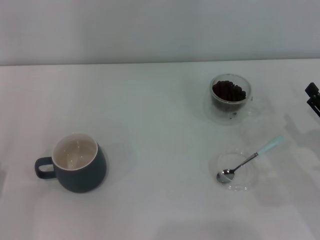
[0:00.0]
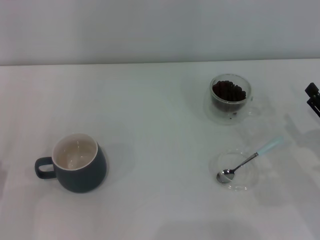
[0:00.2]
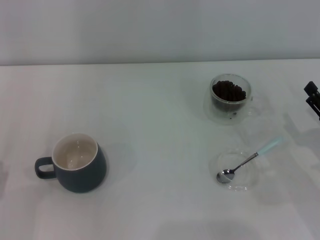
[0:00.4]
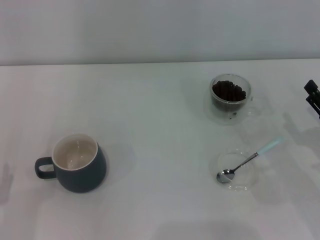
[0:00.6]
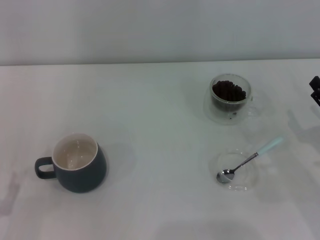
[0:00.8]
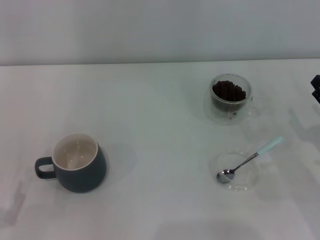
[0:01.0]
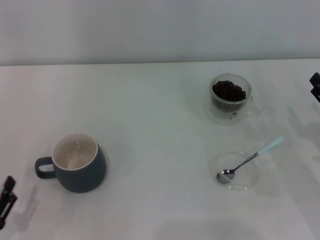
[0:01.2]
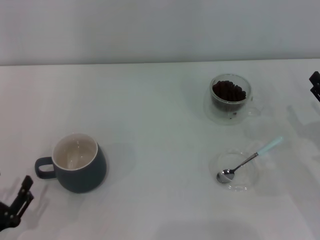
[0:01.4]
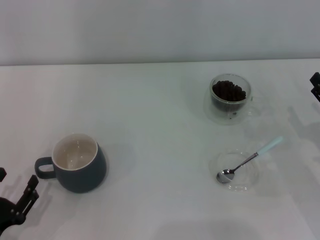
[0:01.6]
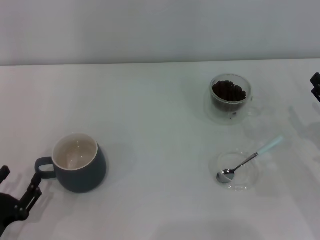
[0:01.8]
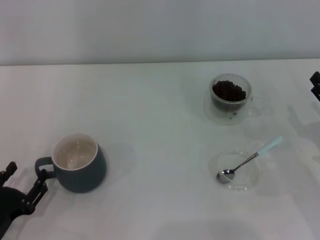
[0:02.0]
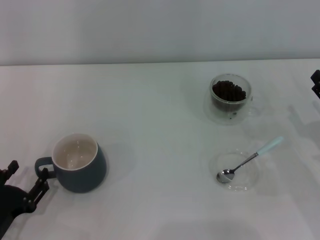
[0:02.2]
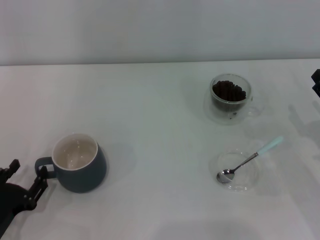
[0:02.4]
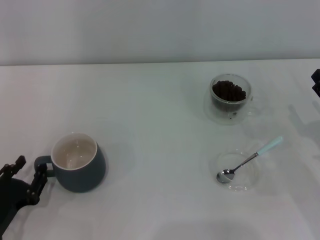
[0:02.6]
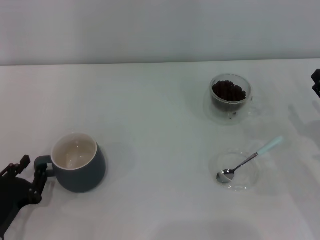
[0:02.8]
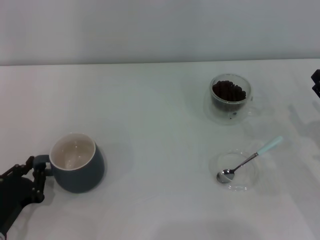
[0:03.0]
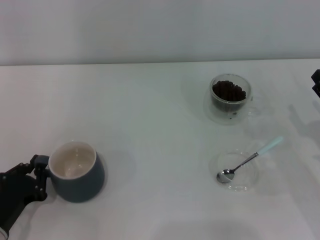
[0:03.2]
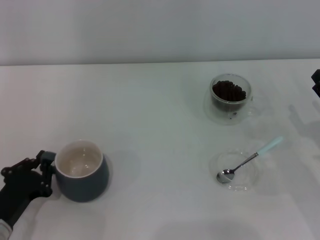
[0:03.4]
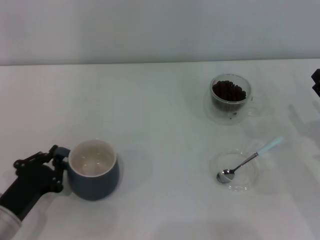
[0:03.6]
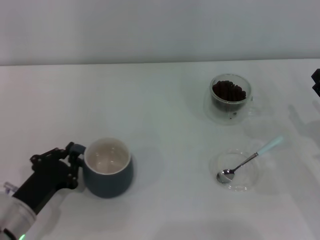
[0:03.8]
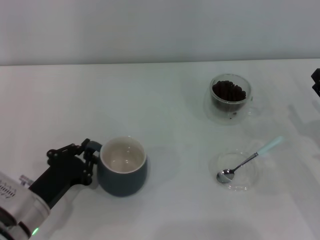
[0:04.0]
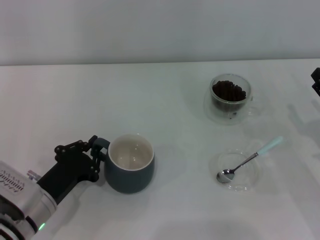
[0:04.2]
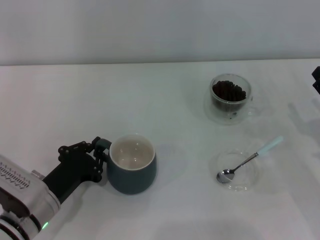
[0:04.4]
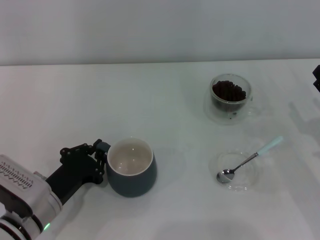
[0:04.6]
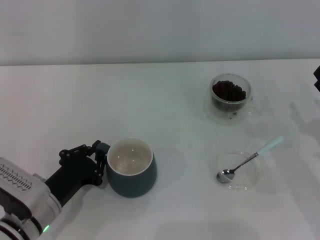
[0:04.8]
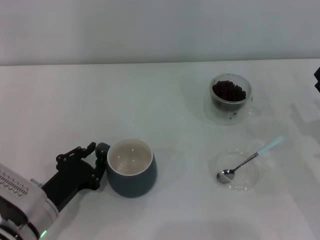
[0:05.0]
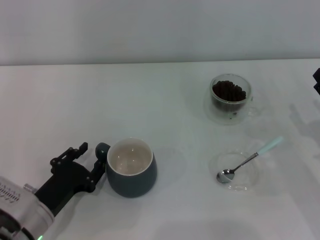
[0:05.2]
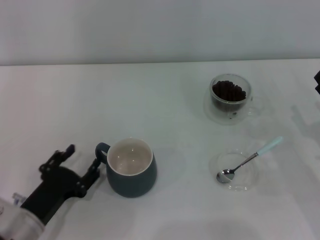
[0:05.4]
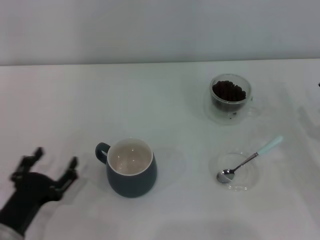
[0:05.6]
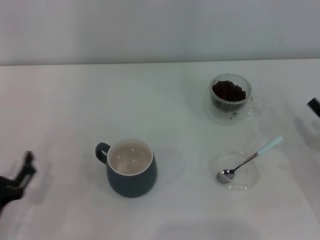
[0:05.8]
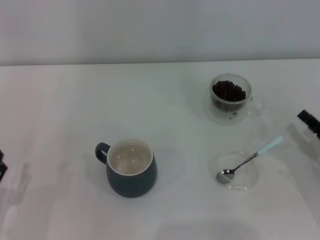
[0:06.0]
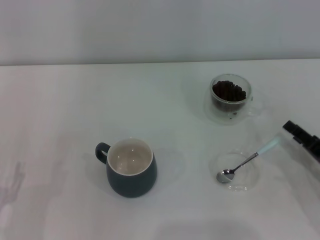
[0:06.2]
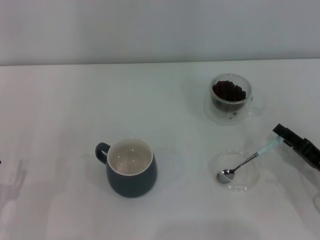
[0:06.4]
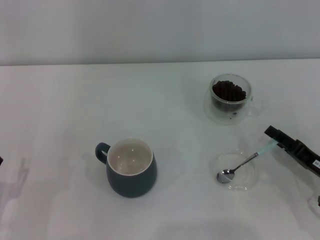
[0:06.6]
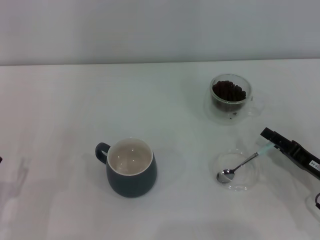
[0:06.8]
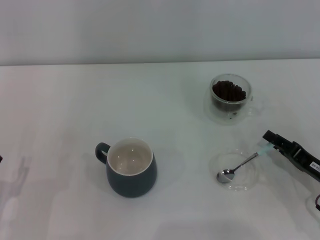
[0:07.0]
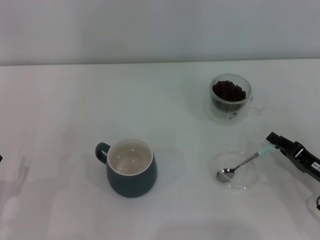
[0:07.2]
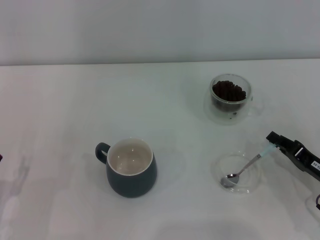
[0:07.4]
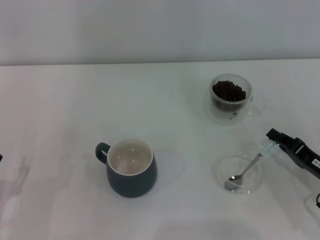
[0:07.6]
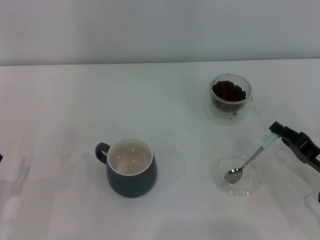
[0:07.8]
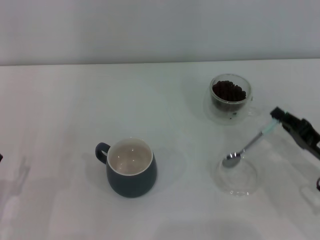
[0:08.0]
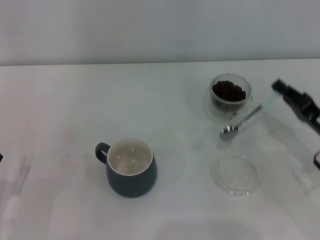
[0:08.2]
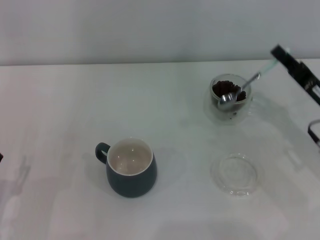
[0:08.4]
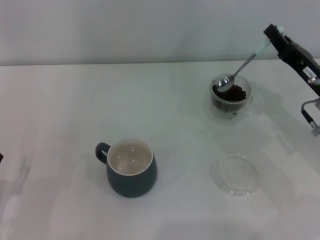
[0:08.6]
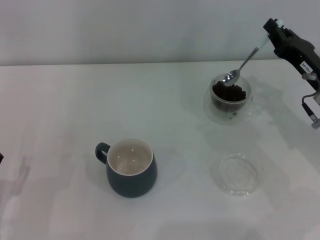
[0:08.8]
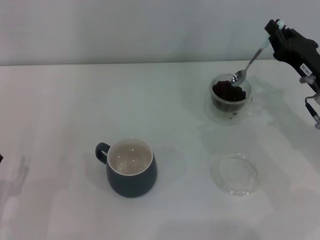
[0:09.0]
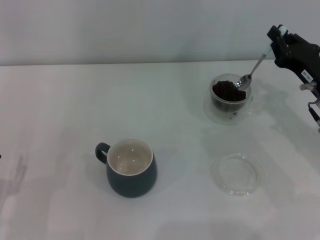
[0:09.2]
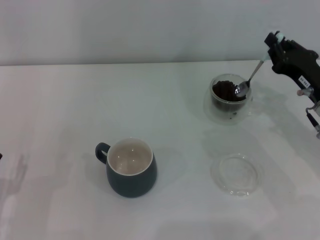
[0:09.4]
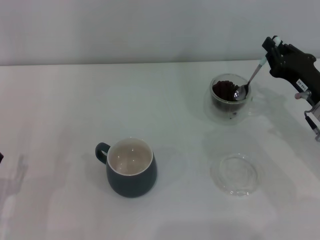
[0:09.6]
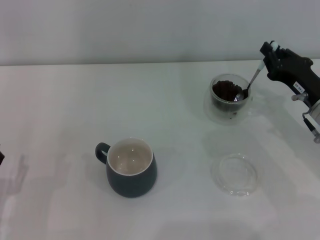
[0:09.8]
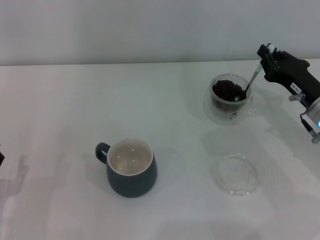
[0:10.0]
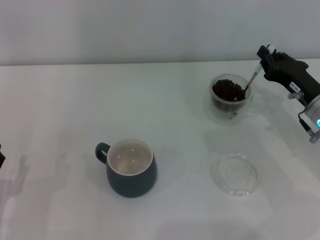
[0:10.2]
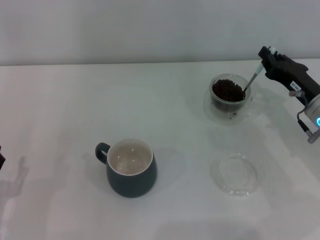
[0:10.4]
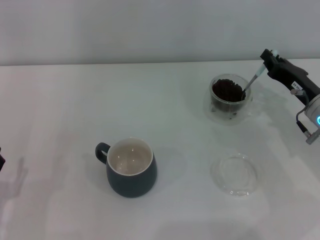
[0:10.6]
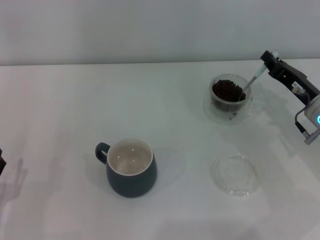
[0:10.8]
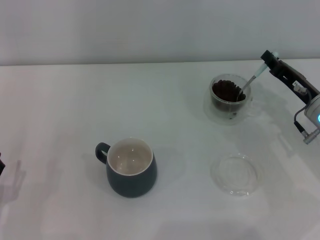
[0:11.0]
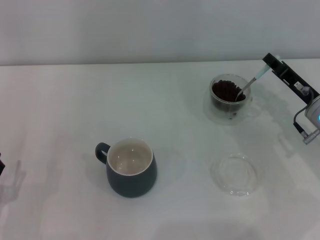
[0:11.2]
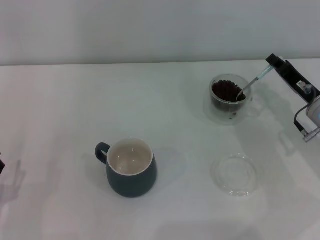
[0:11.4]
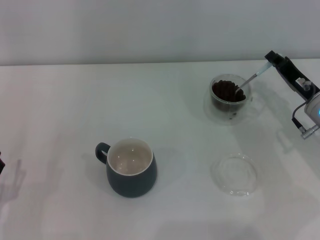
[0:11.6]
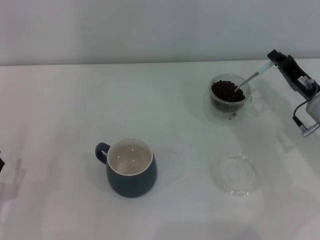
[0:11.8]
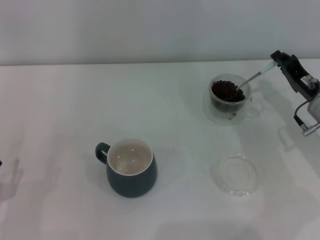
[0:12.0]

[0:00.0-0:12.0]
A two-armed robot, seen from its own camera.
Task of the whole recording: Use a blue spoon to take out the coffee beans from the glass and pour them into the gray cup.
Step, 0:00.0 to 0:05.6: Move the cup to the center of view with the left gripper.
Step, 0:05.8 to 0:08.0: Pick up the spoon with the right gripper.
0:01.6 to 0:03.0: The left gripper closes.
0:03.0 to 0:04.4: The left gripper moves to the right and forward, about 10 cm.
0:04.4 to 0:06.0: The left gripper goes some 10 cm to the left and backward, and opens its fingers.
0:06.0 to 0:07.6: The right gripper closes up.
0:07.6 to 0:09.0: The right gripper goes some 15 cm forward and upward.
0:09.0 to 0:10.4: The grippers stay close to where they were, moving slightly.

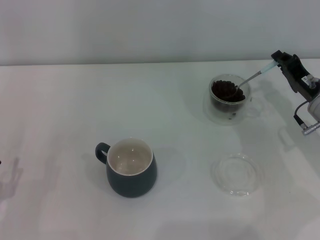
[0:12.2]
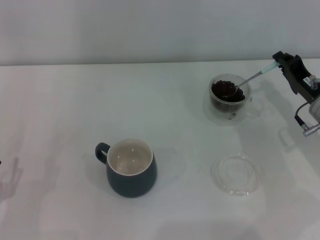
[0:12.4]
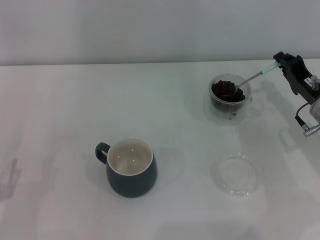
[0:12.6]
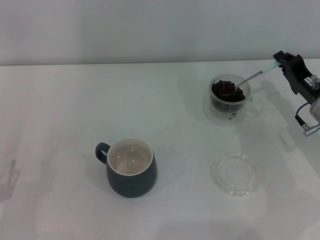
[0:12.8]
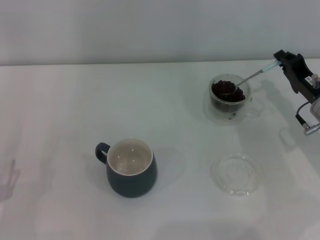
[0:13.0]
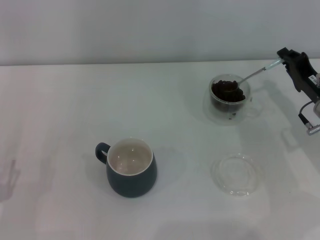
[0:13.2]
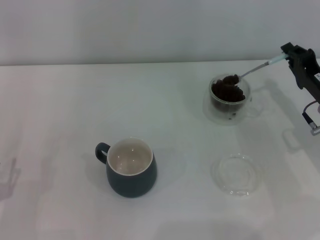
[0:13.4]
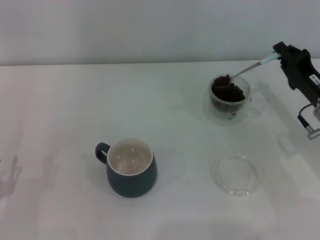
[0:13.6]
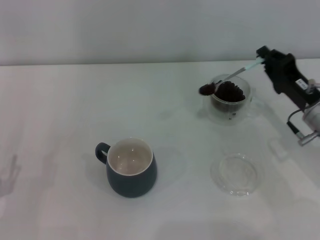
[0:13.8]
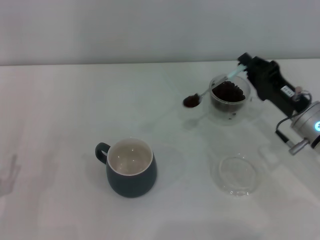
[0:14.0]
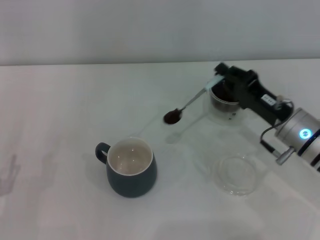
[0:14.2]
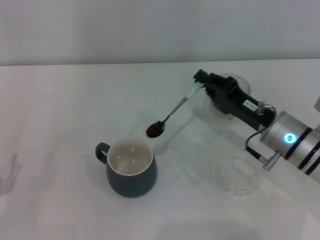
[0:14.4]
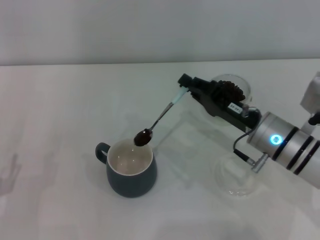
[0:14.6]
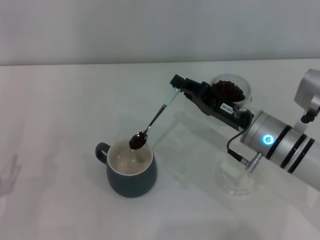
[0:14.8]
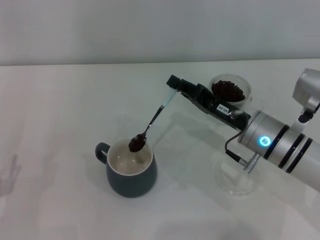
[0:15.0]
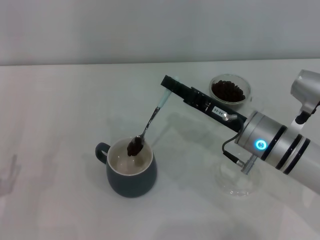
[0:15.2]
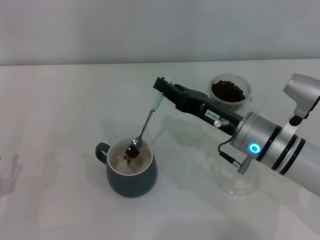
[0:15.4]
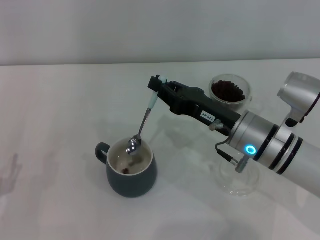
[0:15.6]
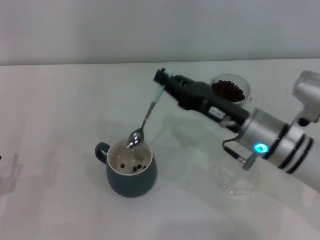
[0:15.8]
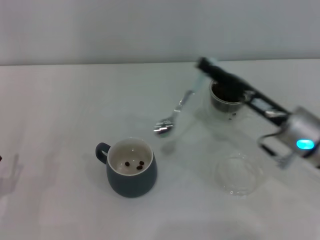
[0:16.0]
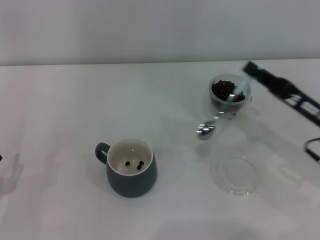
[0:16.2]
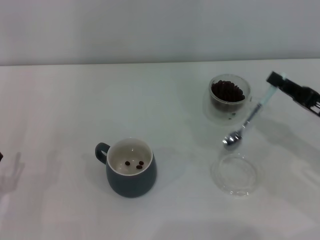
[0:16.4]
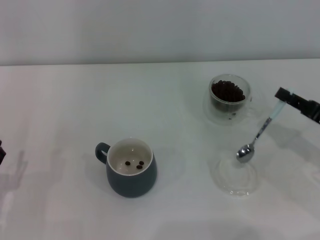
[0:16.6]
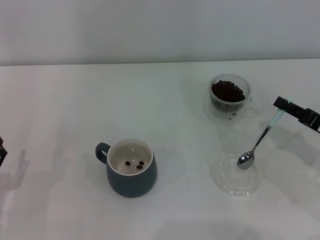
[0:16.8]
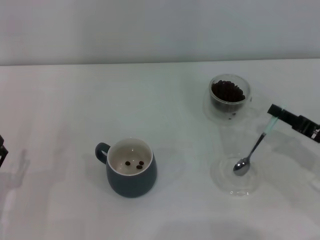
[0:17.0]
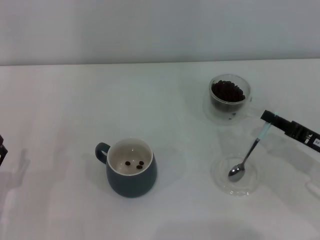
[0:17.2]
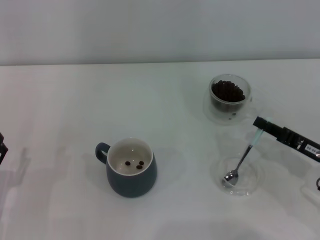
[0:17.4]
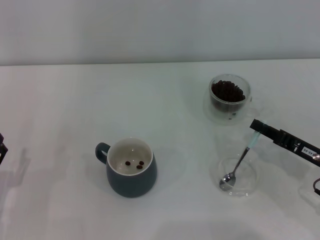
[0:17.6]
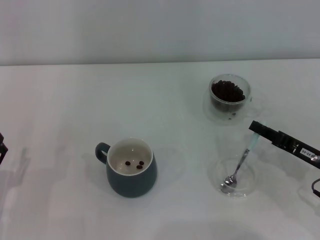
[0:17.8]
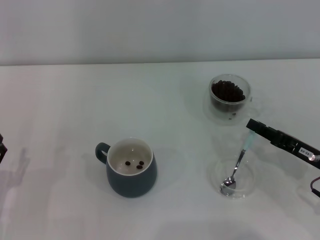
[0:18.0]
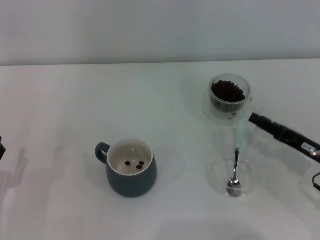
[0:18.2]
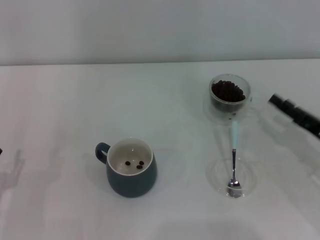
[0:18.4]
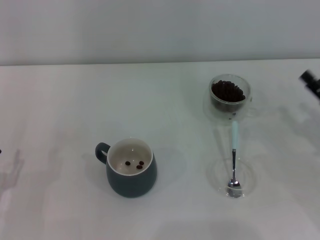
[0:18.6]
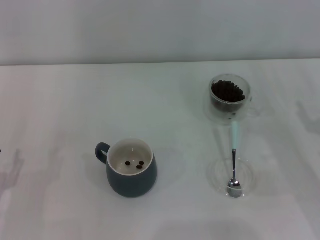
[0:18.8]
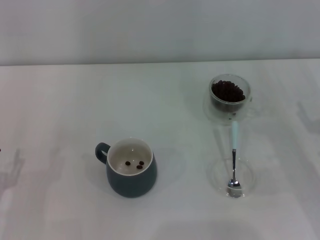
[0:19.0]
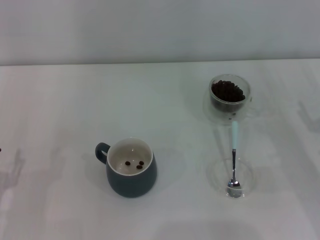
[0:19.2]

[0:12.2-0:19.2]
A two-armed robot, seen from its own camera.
Task of the whole recording: Use a blue spoon to take out the coffee beans from the glass and pour them into the gray cup.
Step, 0:12.2 to 0:15.4: Scoop a spoonful of beans into the cup with the right gripper.
Step, 0:15.6 to 0:18.0: Place the spoon back in its original place with the right gripper.
0:12.2 to 0:13.6: The grippers stay close to where they were, moving slightly.
0:13.6 to 0:15.0: The right gripper goes approximately 10 cm to the left.
0:15.0 to 0:16.4: The right gripper shifts about 15 cm to the right.
0:16.4 to 0:17.8: The right gripper shifts roughly 5 cm downward.
0:17.8 to 0:19.2: The right gripper opens its fingers.

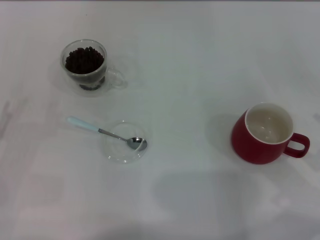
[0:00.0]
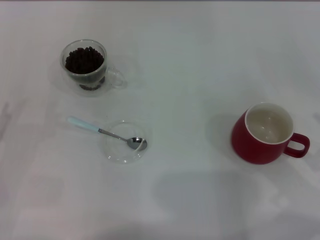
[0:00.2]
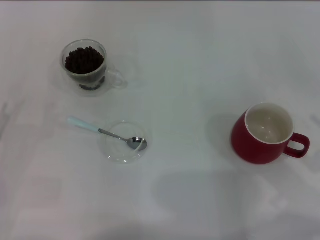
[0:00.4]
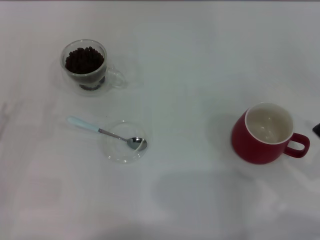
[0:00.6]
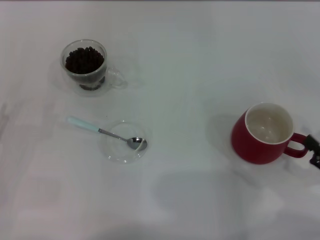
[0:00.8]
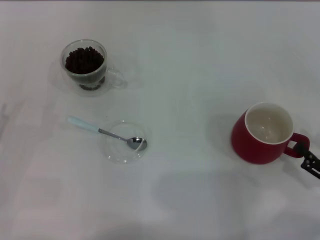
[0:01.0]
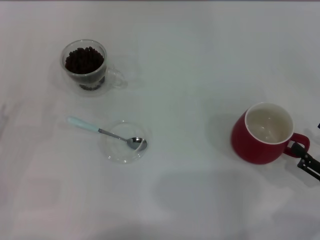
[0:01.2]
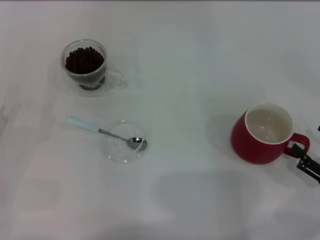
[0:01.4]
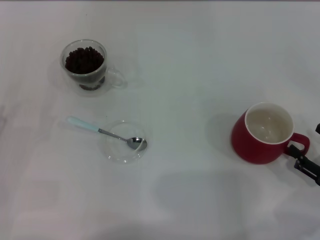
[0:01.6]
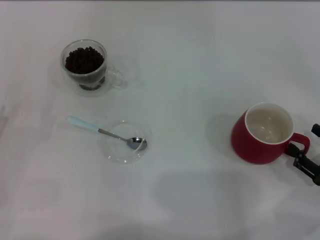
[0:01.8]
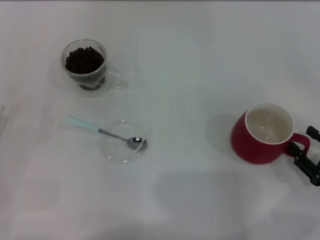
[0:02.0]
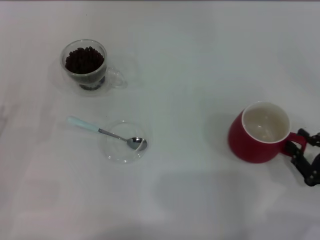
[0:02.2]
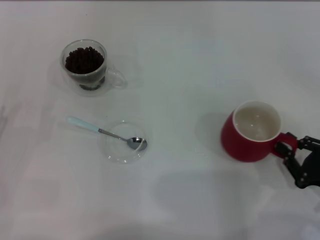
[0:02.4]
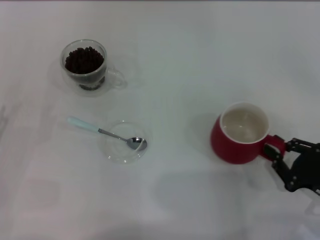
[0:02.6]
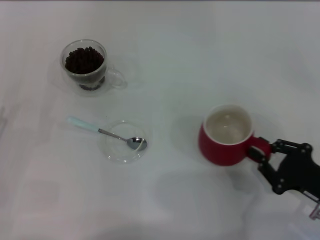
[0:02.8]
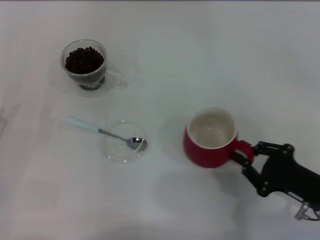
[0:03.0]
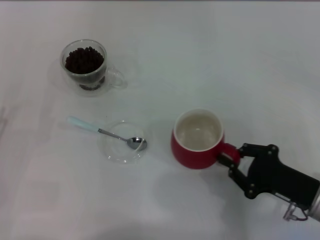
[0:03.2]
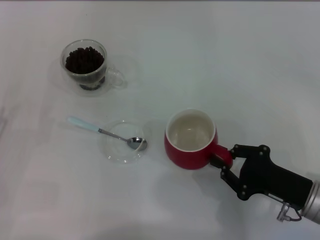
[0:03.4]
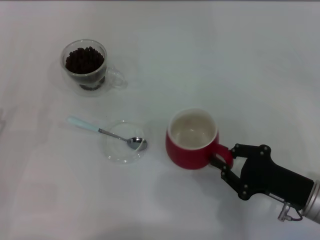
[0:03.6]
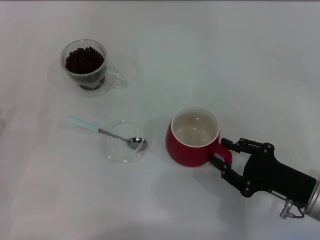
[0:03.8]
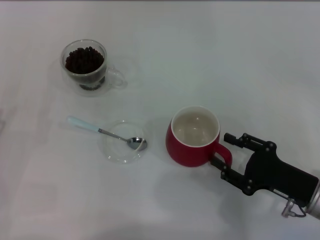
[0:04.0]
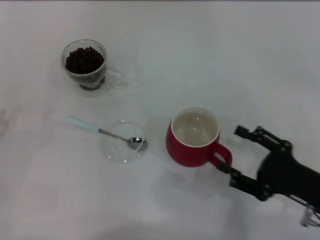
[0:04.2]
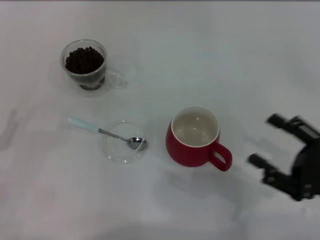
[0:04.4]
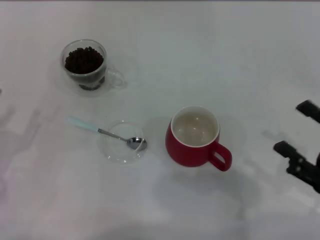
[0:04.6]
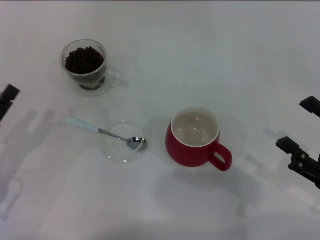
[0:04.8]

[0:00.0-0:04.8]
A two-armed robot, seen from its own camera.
Task of the whole recording: Use a blue spoon to take out the coffee beans from the glass and pour them into the red cup.
0:00.0 to 0:01.6: The right gripper shifts by roughly 5 cm.
0:01.6 to 0:03.2: The right gripper moves to the left, some 10 cm, and closes.
0:03.2 to 0:04.8: The right gripper shifts approximately 5 cm upward, and opens its fingers.
